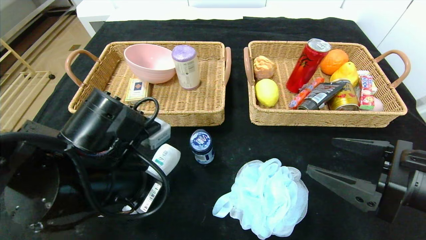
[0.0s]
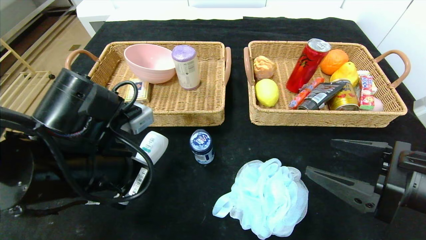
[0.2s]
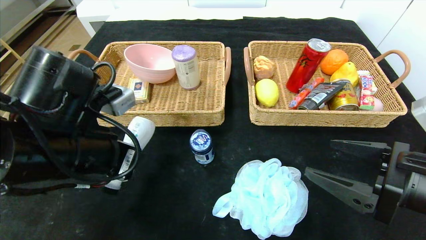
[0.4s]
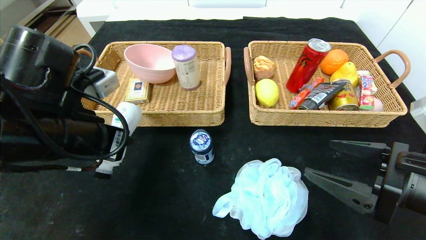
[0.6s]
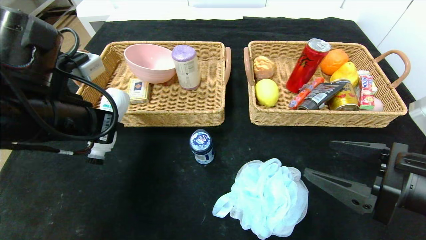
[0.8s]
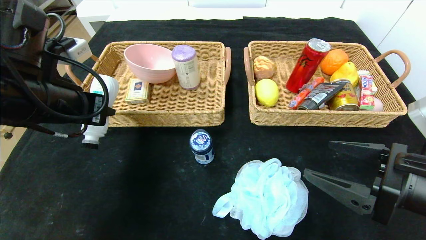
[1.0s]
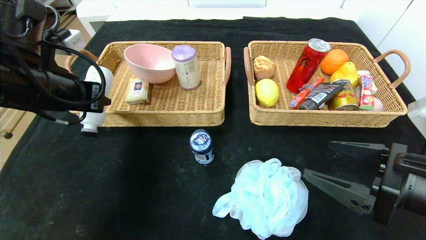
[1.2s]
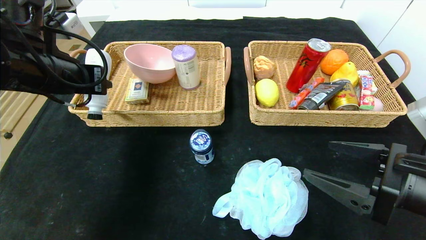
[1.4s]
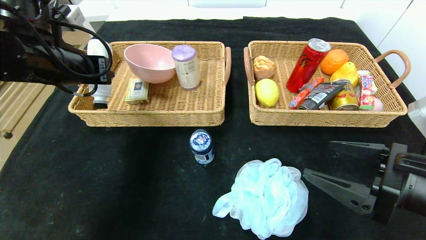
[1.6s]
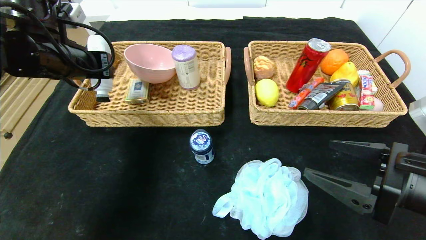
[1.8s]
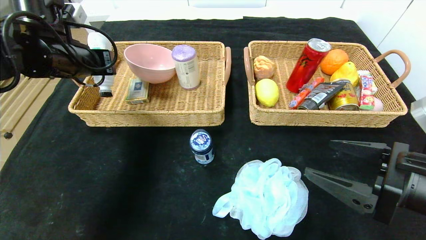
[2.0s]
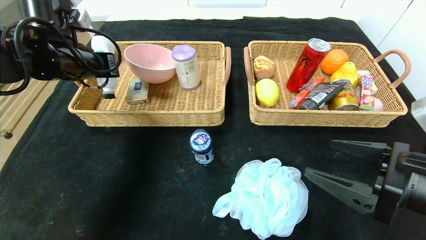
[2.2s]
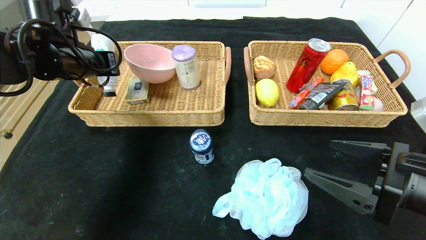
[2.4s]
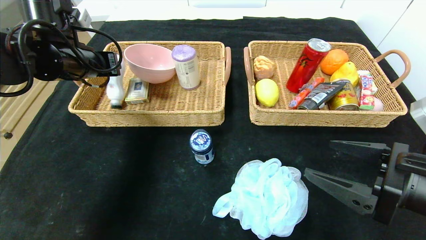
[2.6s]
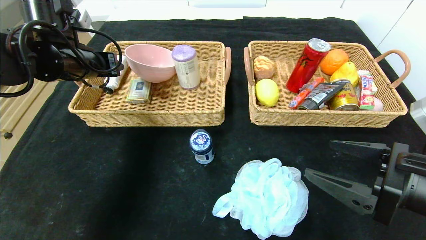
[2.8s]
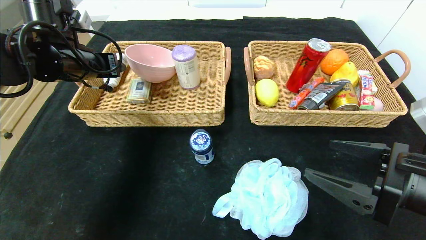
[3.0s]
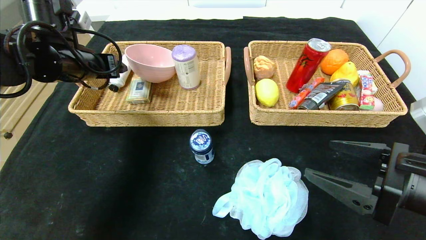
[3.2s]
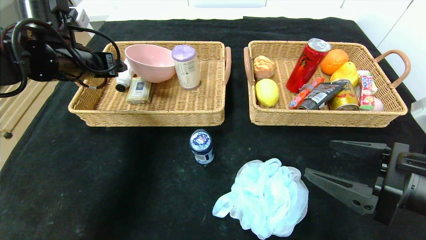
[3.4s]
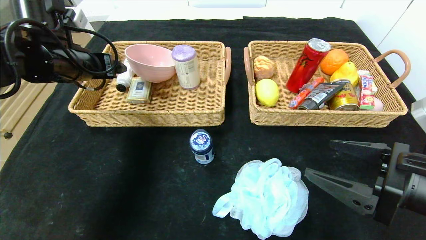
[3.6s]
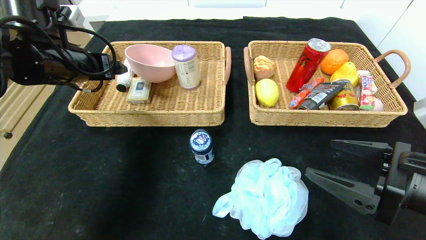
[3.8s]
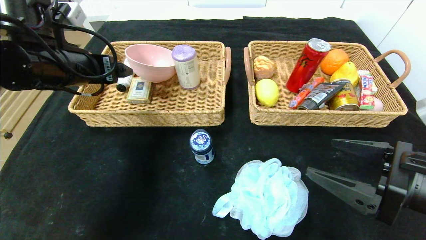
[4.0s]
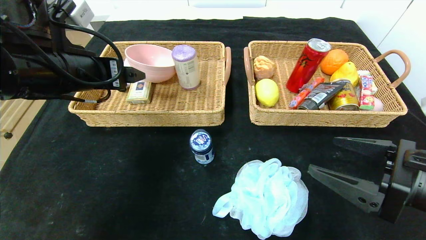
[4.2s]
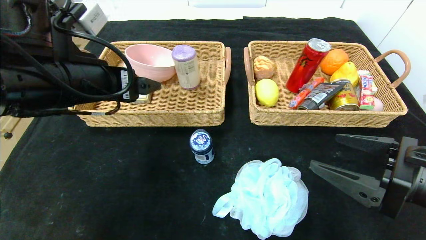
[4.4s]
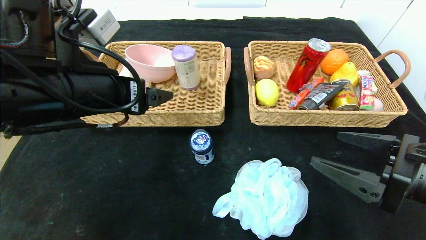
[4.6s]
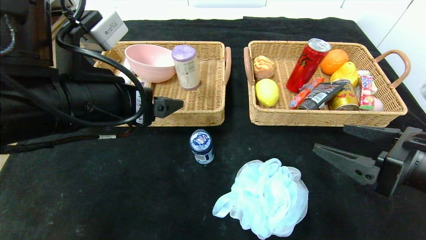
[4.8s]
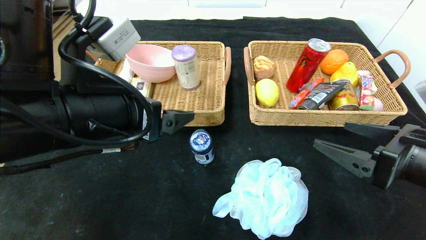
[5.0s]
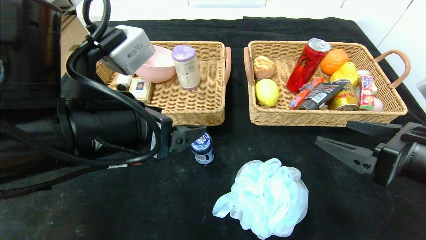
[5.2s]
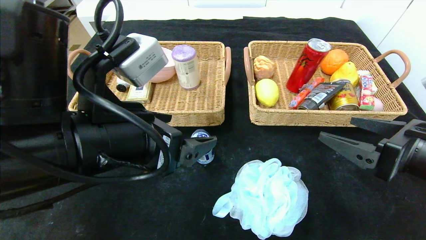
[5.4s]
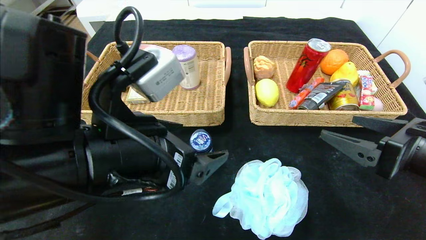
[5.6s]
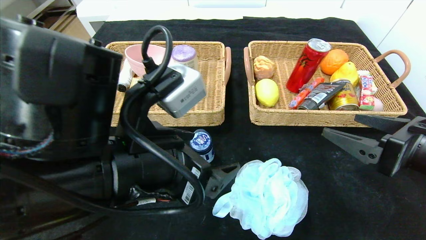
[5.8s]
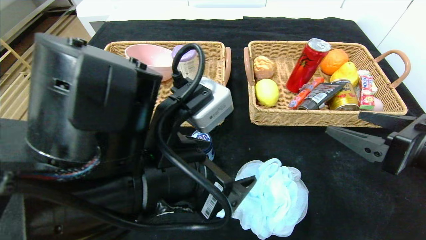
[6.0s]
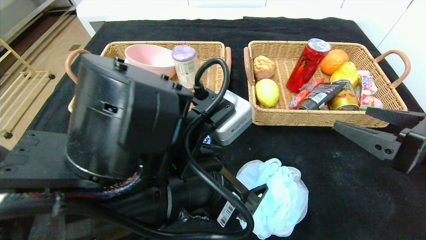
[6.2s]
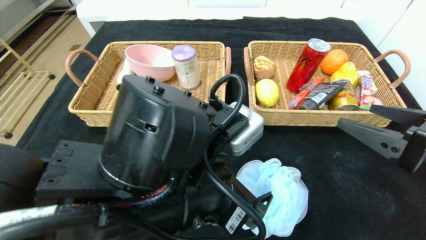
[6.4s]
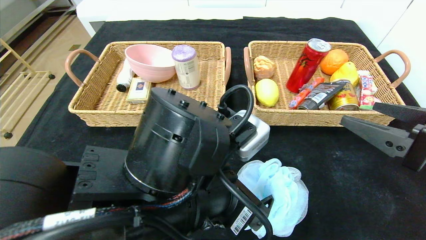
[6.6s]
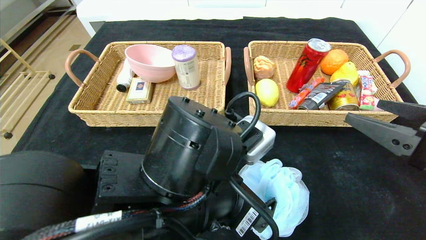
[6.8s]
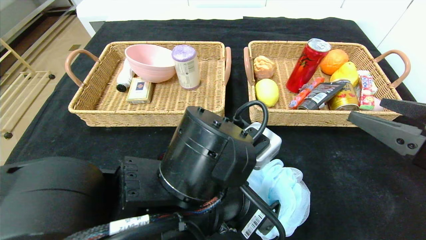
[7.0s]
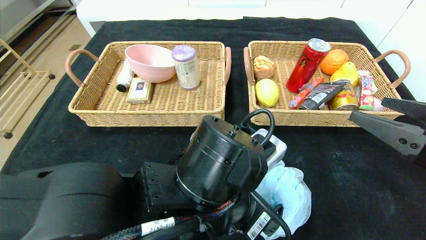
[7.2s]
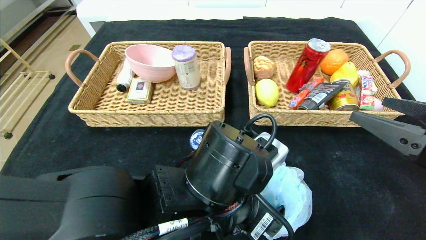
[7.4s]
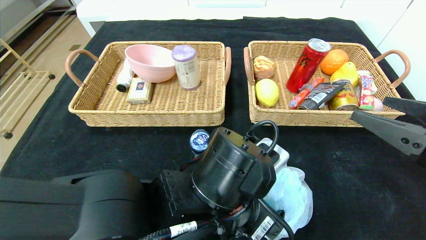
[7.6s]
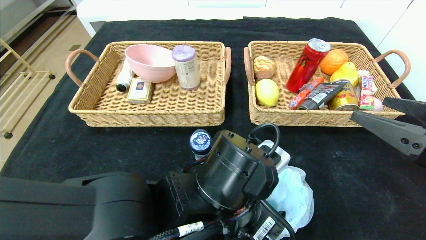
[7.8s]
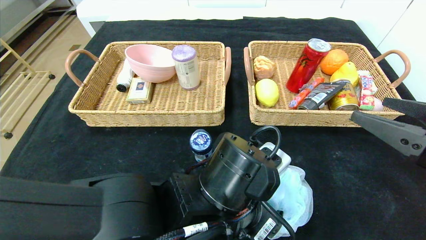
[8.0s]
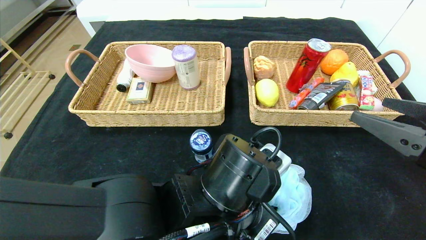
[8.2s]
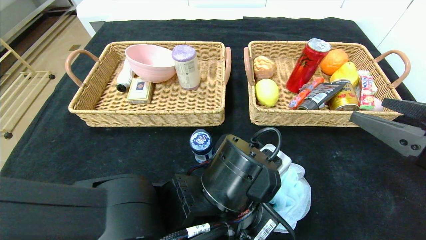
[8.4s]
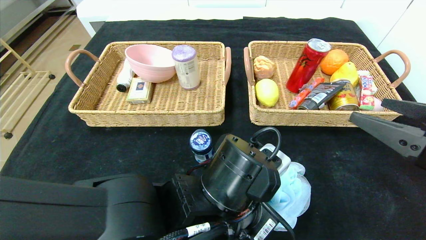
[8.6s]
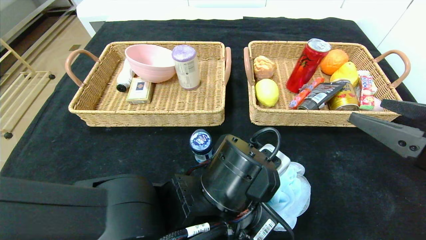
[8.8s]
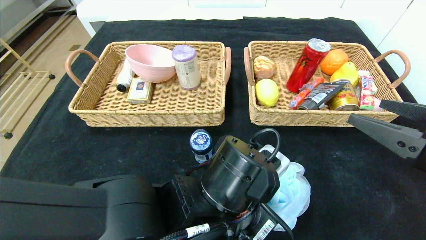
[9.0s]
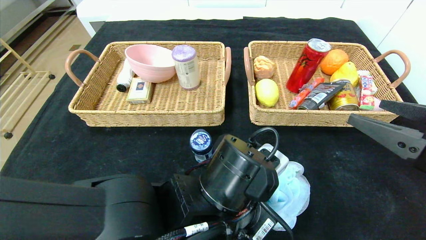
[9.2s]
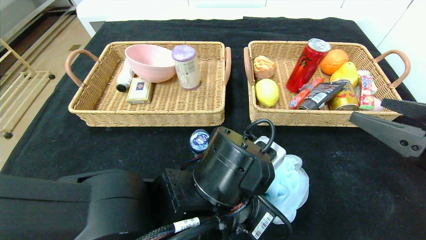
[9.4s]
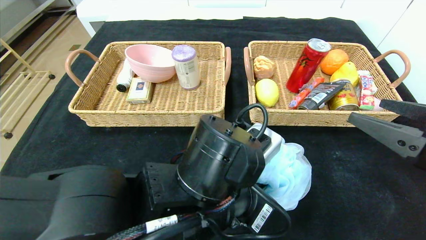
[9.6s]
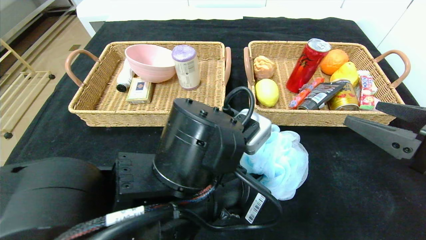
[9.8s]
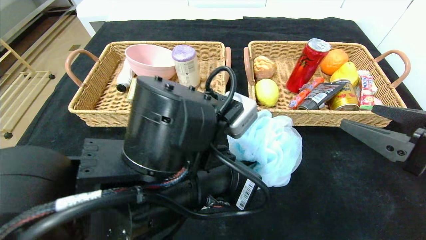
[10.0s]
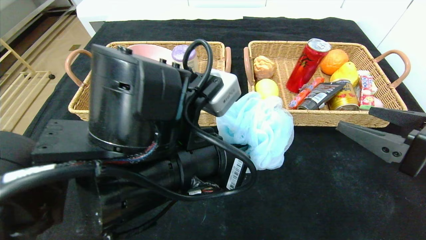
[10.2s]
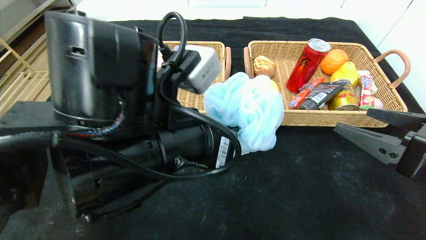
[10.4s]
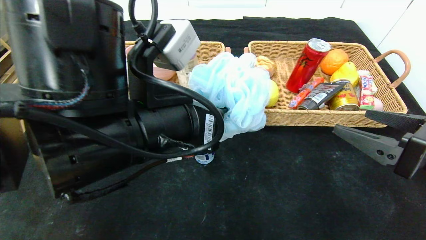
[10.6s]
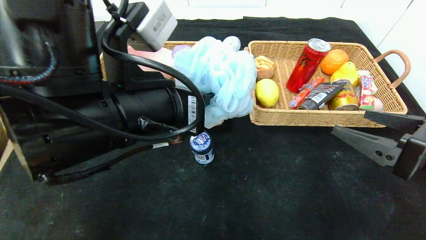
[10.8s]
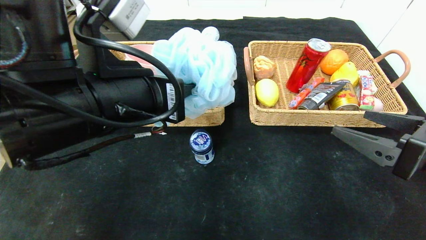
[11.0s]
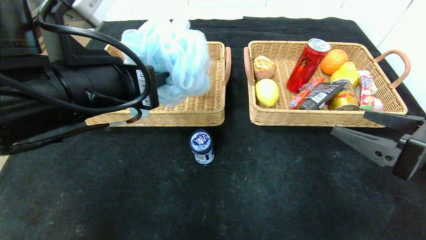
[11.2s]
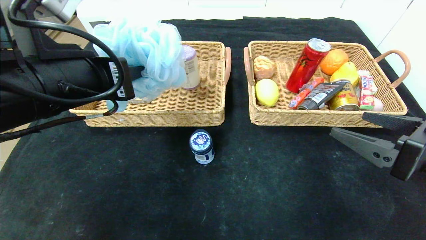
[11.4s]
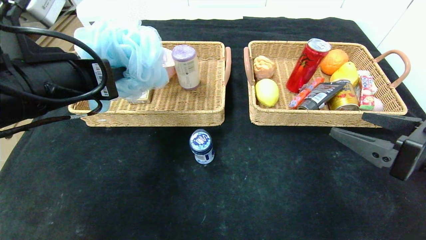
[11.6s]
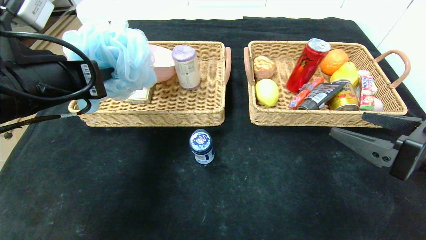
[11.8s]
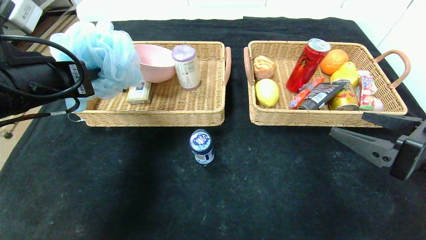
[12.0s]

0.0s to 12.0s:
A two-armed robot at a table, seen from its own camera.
Step, 0.0s to 3.2s: Grasp the washing liquid and put it in the left basket.
0.0s to 1.6s: The left gripper travels forward, upward and to the left by some 20 cm.
1.6s to 3.0s: The left gripper changes place by some 5 cm, and opens up.
3.0s to 4.4s: The left gripper goes approximately 15 cm backward and to the right.
4.4s to 6.0s: The left gripper moves to the right, backward and downward, some 15 cm.
6.0s to 7.6s: The left gripper is displaced downward and to the right by roughly 10 cm.
7.6s to 9.0s: The left gripper closes its fingers.
9.0s to 10.4s: The left gripper travels upward and to the left by approximately 10 cm.
10.4s to 12.0s: The left gripper heads to the left, covering about 20 cm.

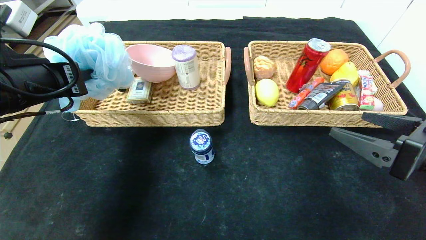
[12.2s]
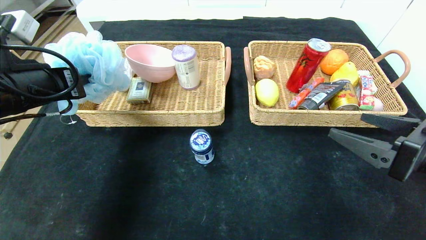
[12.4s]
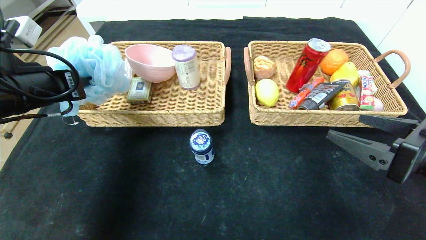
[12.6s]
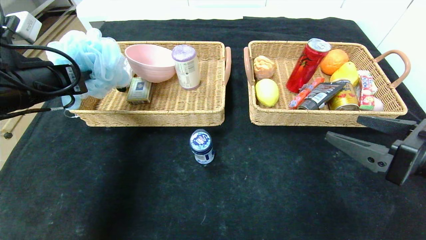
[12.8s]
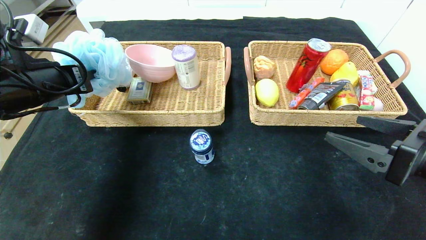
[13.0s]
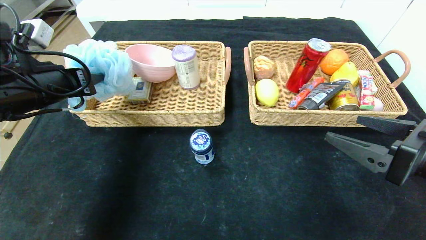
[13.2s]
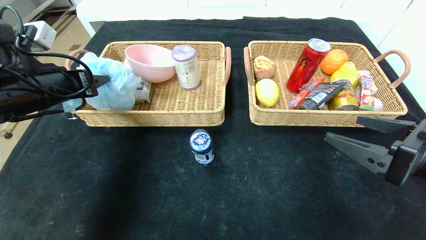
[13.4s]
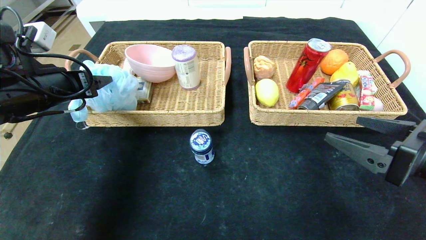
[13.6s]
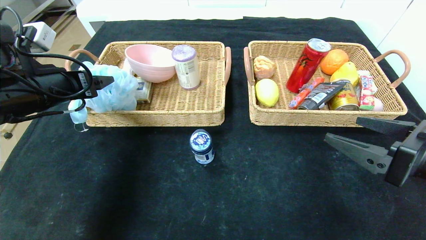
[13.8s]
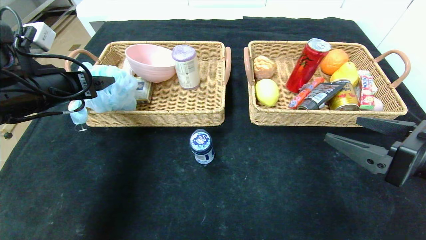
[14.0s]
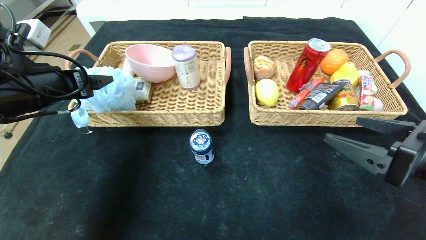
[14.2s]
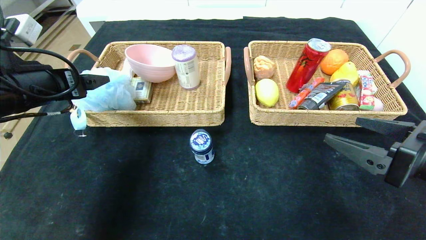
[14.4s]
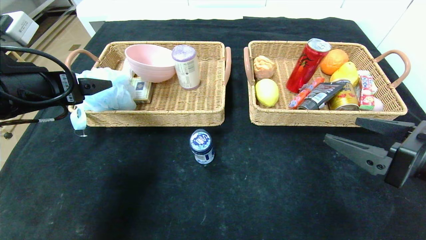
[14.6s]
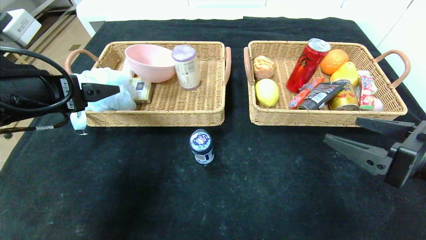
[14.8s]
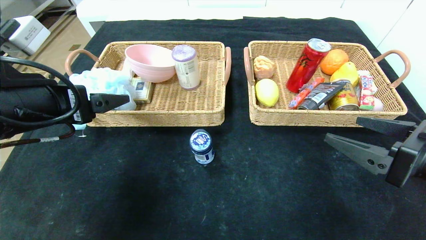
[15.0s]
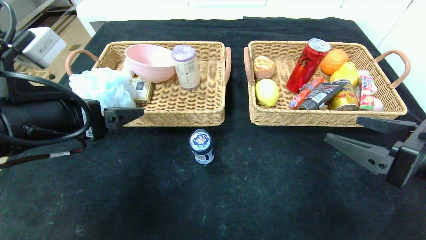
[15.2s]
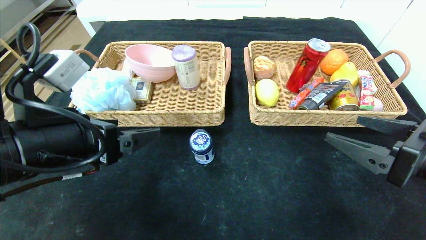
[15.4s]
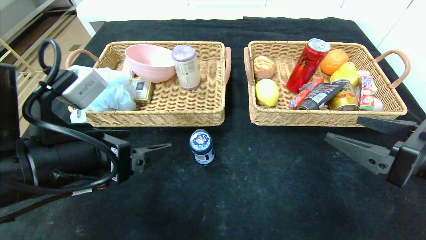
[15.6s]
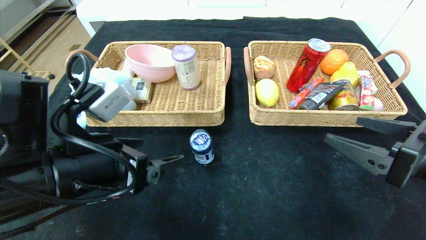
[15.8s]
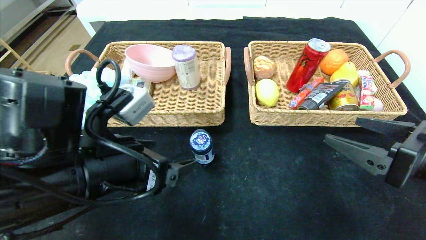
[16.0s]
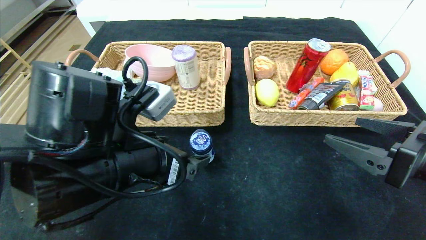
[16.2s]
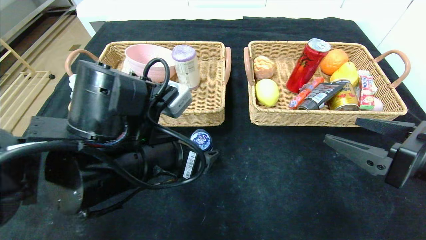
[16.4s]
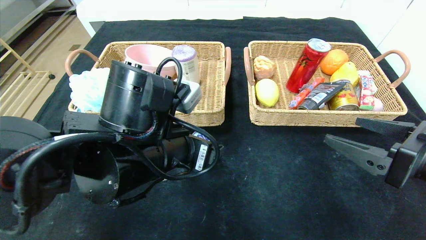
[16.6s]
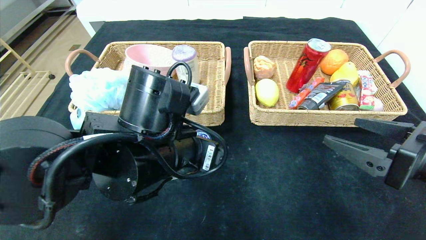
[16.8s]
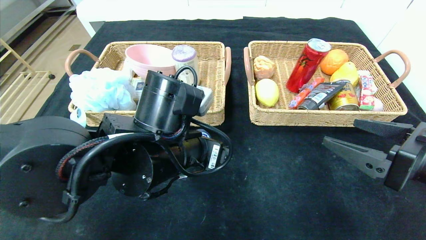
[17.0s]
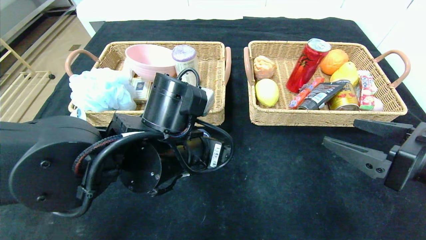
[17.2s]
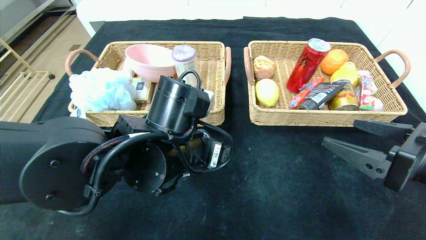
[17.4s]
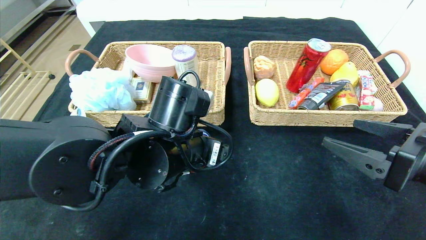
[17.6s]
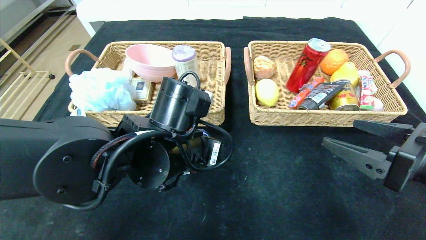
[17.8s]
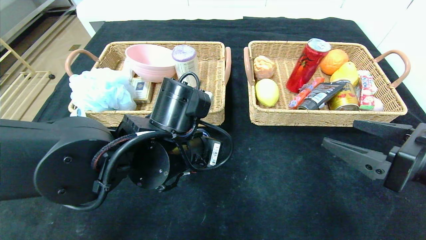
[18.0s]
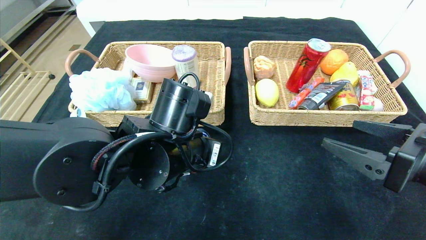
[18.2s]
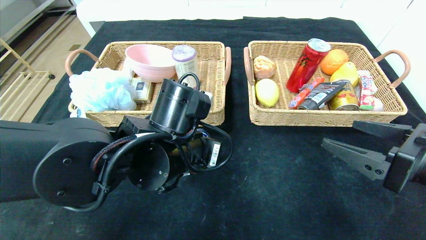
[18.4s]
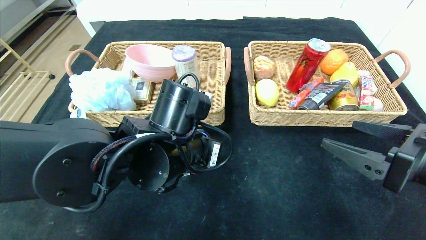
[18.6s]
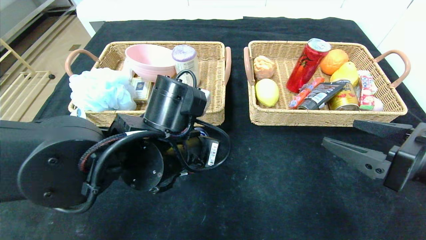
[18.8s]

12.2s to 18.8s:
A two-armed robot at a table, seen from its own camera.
12.2s to 13.8s: The left gripper ends up some 5 cm from where it was, and opens up.
13.8s to 15.4s: The left gripper is displaced backward and to the right by about 15 cm.
15.4s to 17.2s: The left gripper shifts approximately 15 cm to the right and forward.
17.2s to 18.8s: The left gripper closes up.
